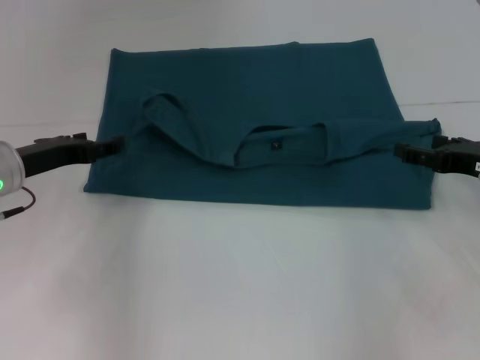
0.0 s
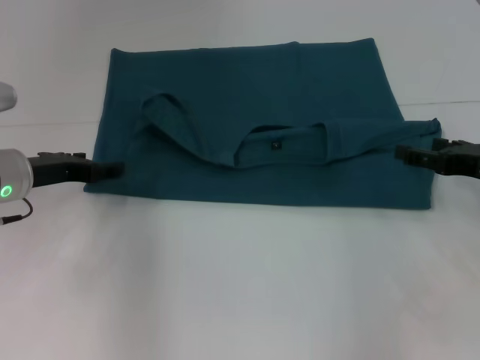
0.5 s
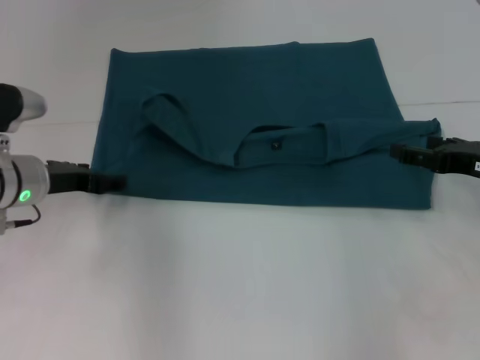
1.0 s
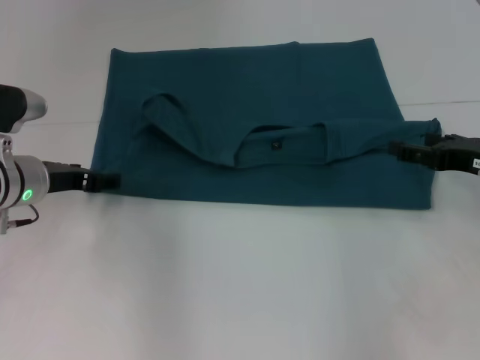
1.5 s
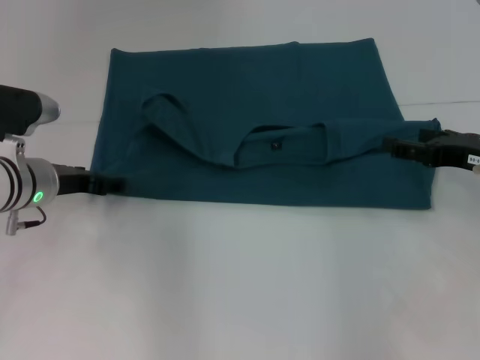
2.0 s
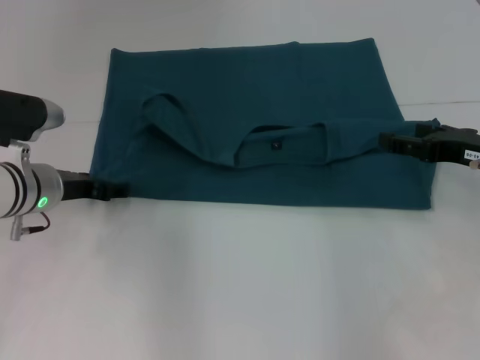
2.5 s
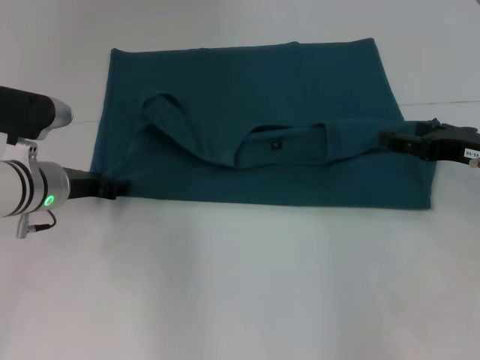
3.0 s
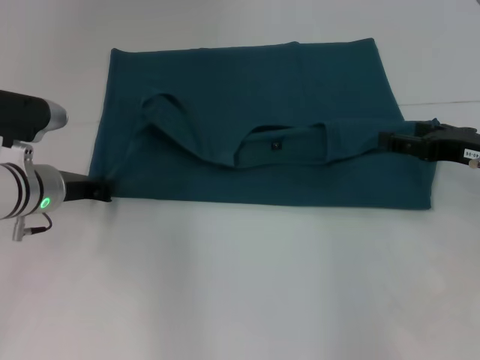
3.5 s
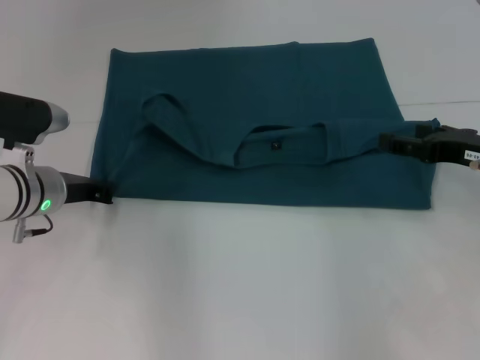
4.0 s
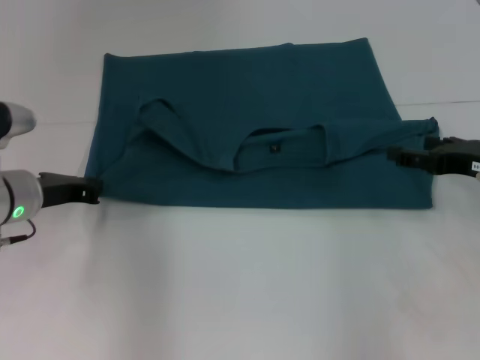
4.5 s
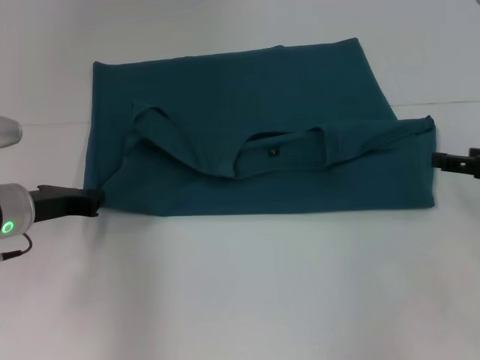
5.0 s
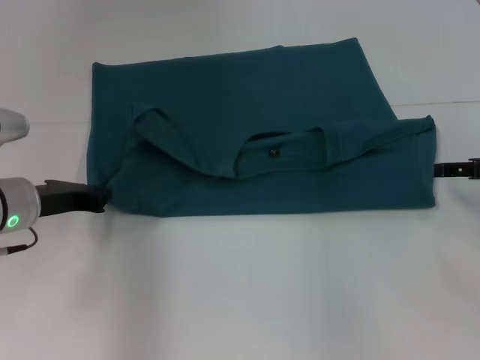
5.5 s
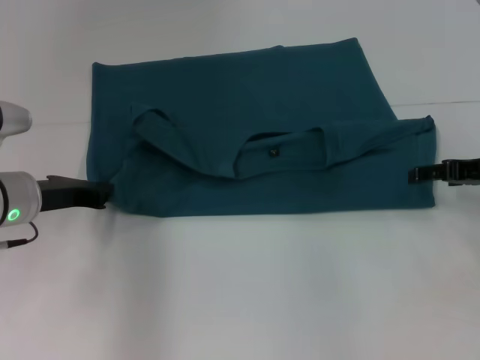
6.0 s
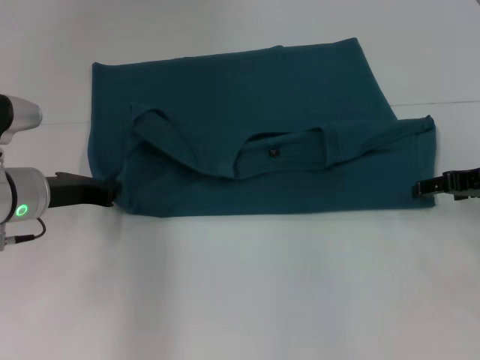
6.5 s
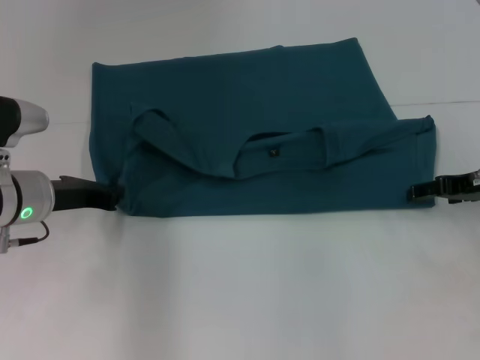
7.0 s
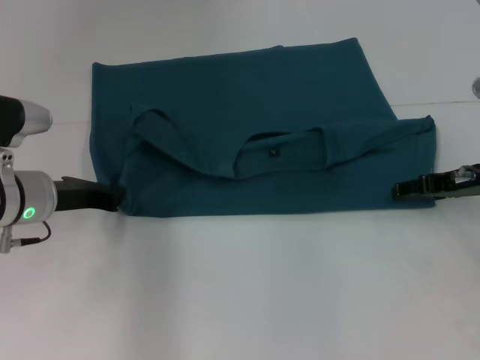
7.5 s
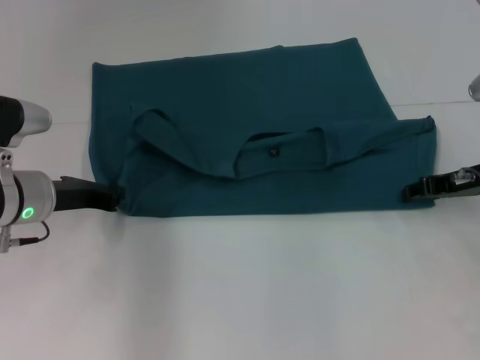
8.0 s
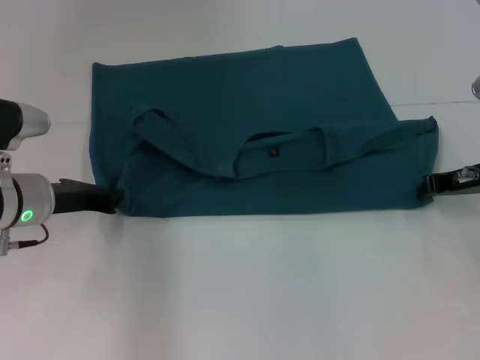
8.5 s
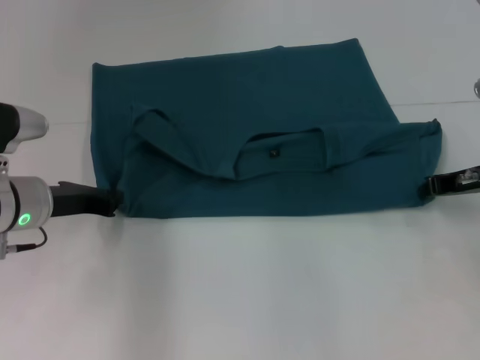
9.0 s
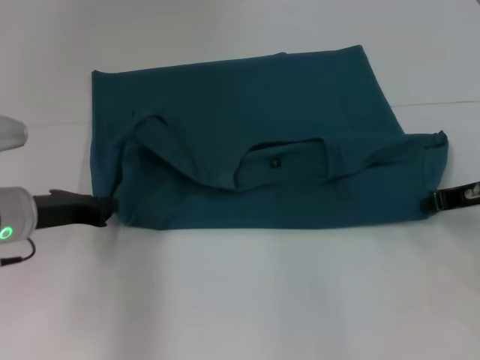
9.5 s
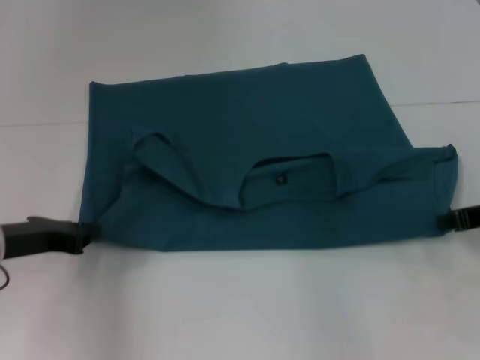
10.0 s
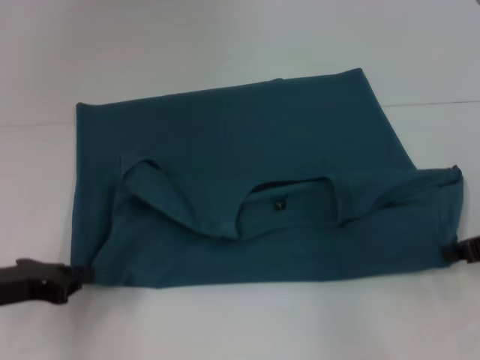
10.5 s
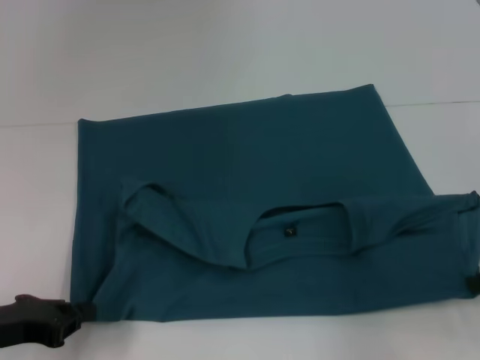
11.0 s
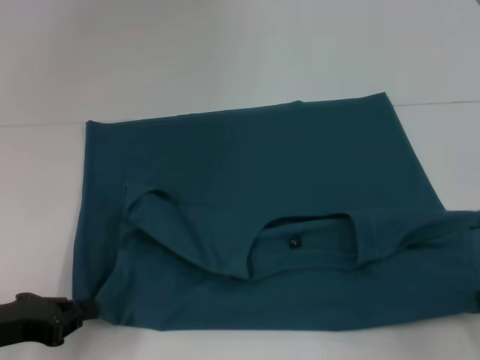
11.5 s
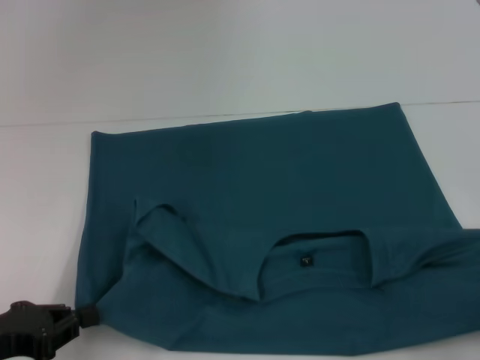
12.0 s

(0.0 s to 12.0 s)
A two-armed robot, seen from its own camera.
Step, 0.0 s - 12.0 s: Pull the clothes with your left hand.
Step, 0.0 s - 12.0 s: Pull the clothes with your right hand.
2.0 s - 4.0 s: The left gripper closes.
6.0 s - 8.0 s: The grippers move only a little.
8.0 s - 10.0 s: Both grippers travel together backward, about 5 cm. The right gripper closes.
10.0 s - 12.0 s: The left gripper shifts roughly 10 cm backward, while the right gripper moves backward and to the right, approximately 15 cm.

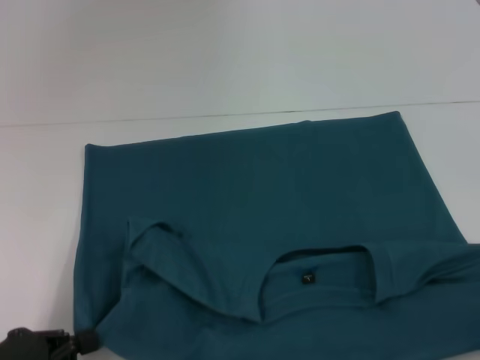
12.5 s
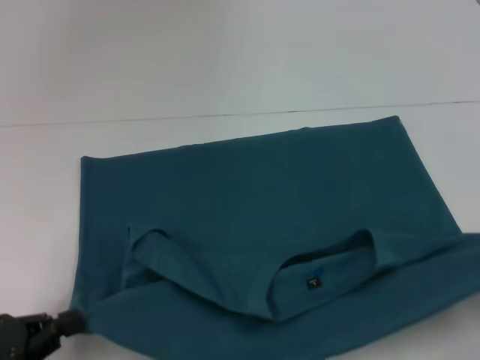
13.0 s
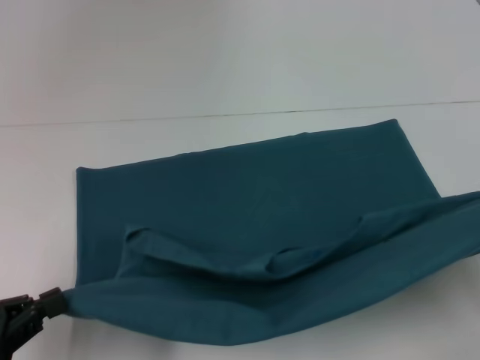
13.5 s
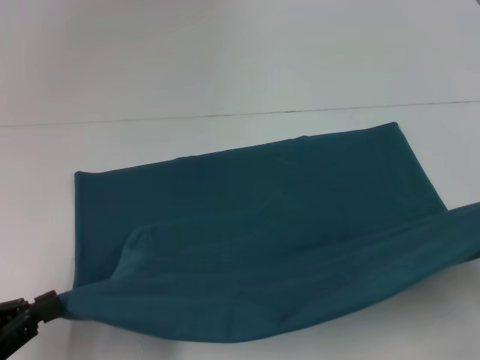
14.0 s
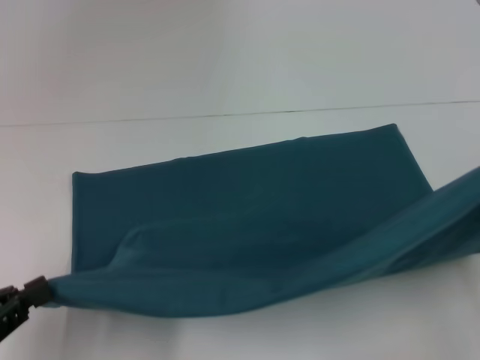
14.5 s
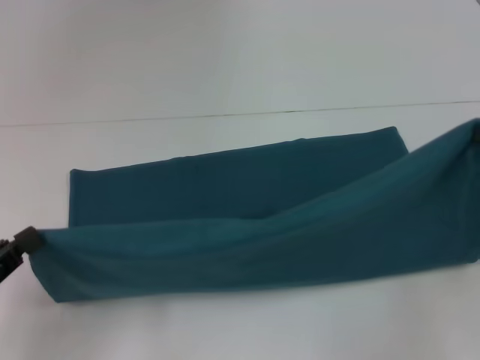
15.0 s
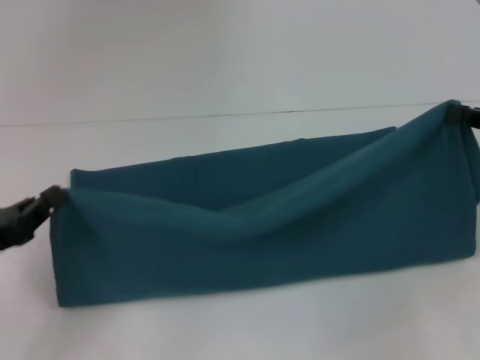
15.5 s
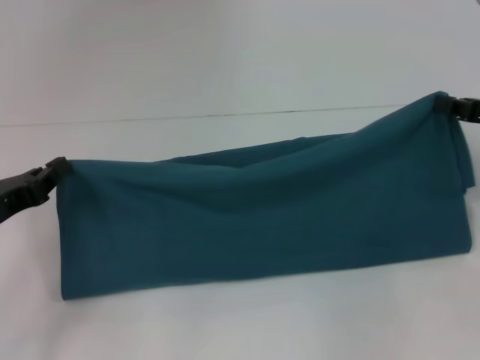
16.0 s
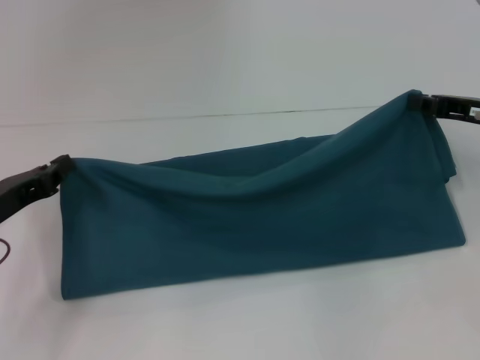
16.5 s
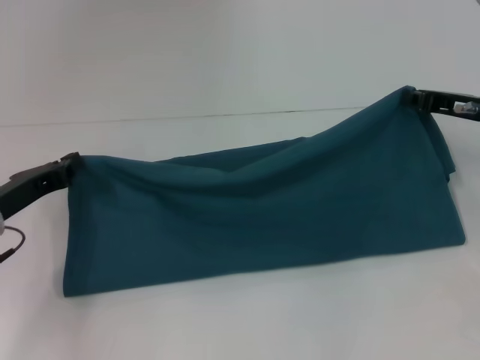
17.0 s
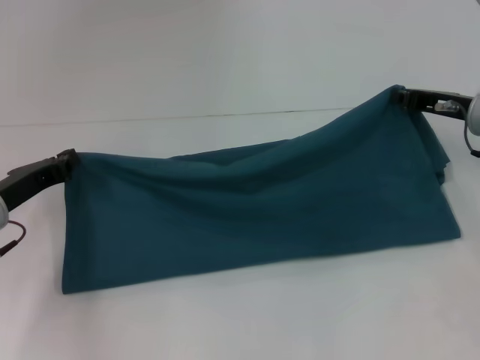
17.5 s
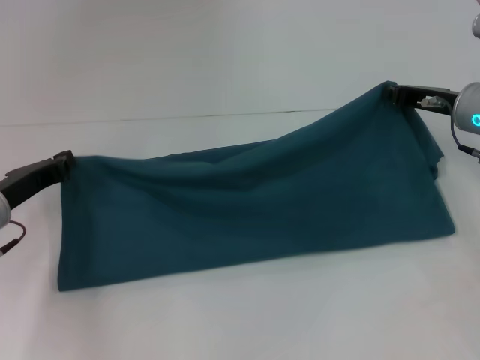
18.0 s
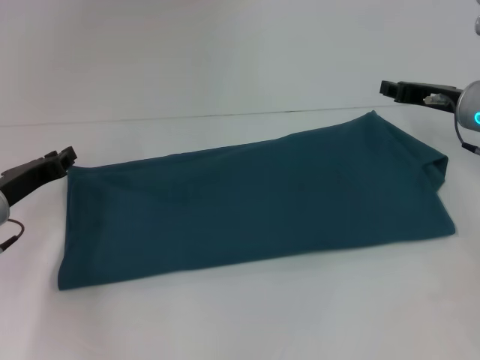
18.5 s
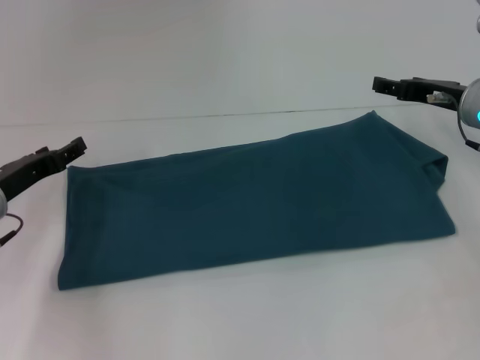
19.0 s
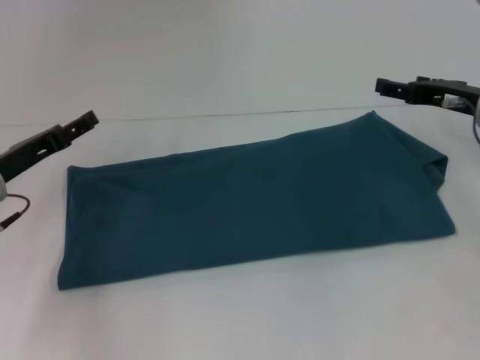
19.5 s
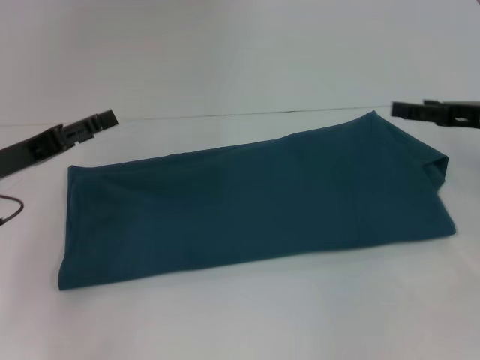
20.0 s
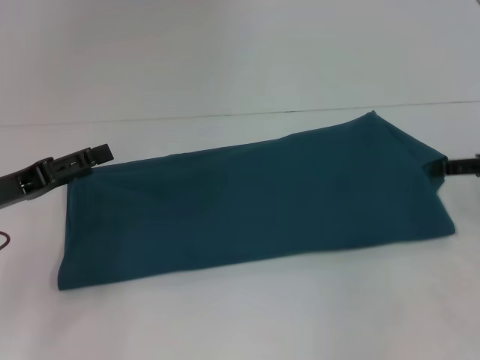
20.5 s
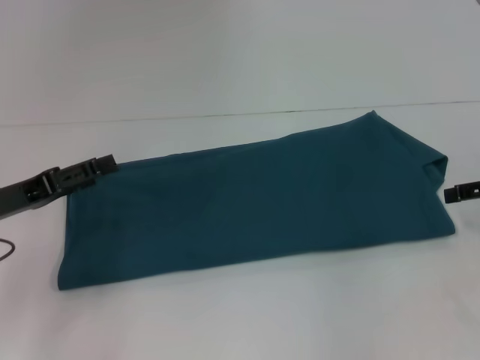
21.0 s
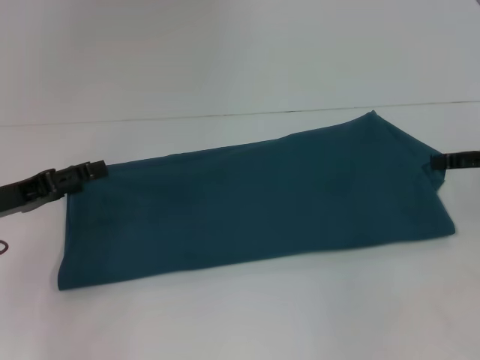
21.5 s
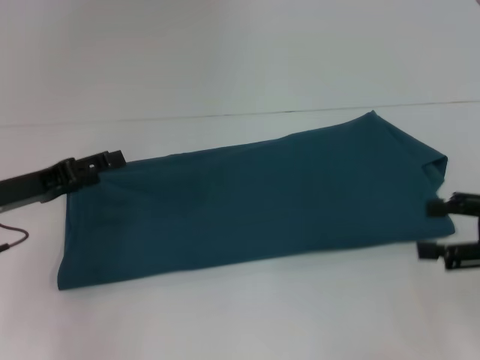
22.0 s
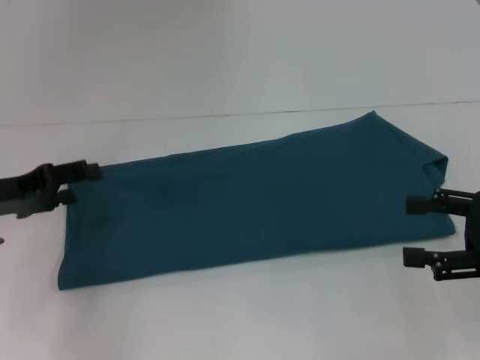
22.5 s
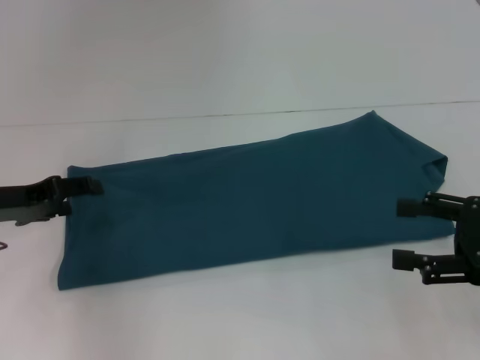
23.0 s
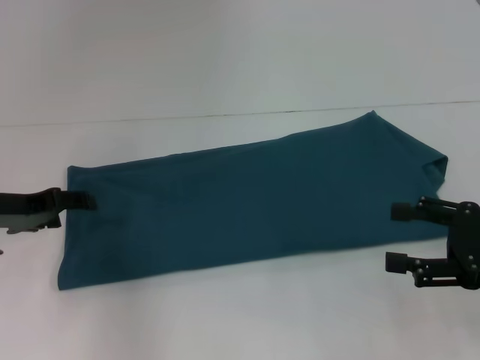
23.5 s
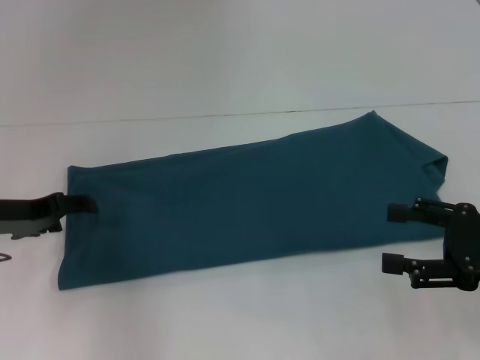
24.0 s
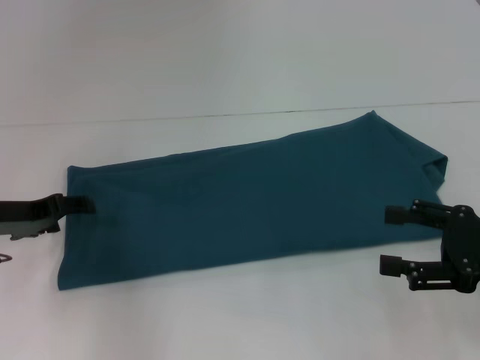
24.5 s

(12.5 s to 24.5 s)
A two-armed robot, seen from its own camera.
Step, 12.5 s - 18.0 s: Fold the clothes to the right.
12.5 s - 14.5 s: The right gripper travels forward and upward by about 10 cm.
14.5 s - 16.5 s: The left gripper shifts about 15 cm forward, while the right gripper shifts some 15 cm forward and to the left.
16.5 s - 18.5 s: The left gripper changes place by some 5 cm; the right gripper shifts by some 5 cm.
18.5 s - 20.5 s: The right gripper is displaced backward and to the right by approximately 10 cm, and opens up. Meanwhile the left gripper ends up about 5 cm from where it was, and opens its fingers.
20.5 s - 22.5 s: The right gripper shifts approximately 10 cm backward.
22.5 s - 24.5 s: The grippers move only a little.

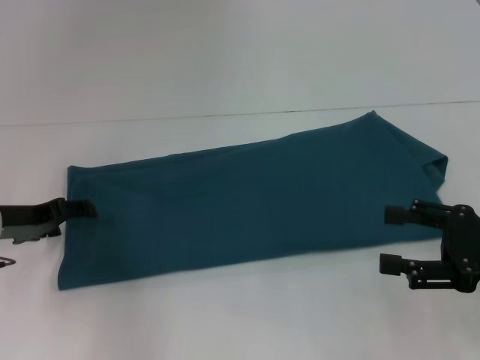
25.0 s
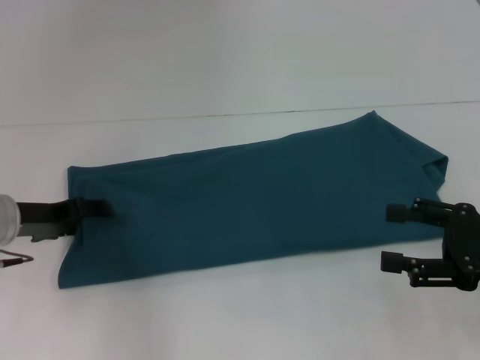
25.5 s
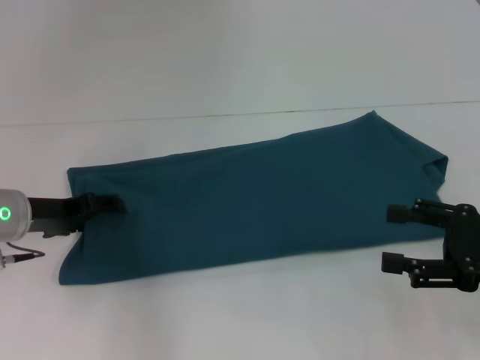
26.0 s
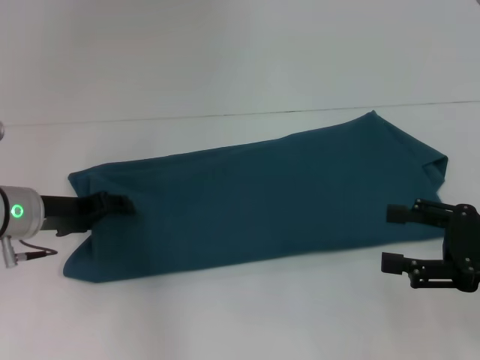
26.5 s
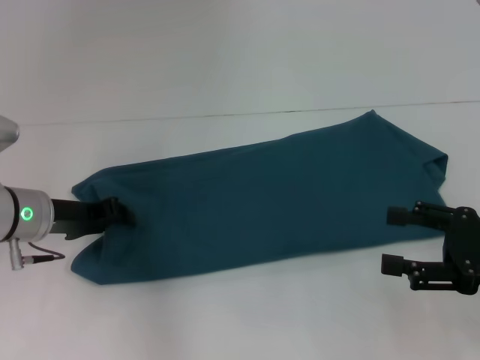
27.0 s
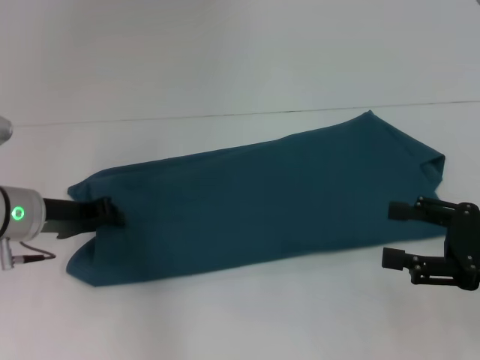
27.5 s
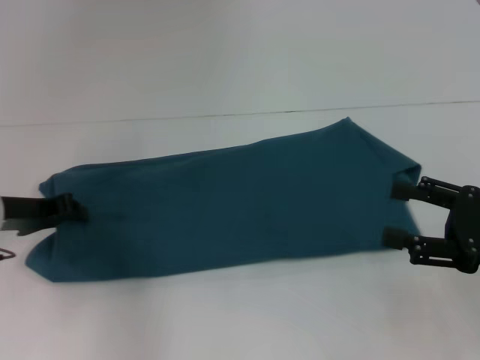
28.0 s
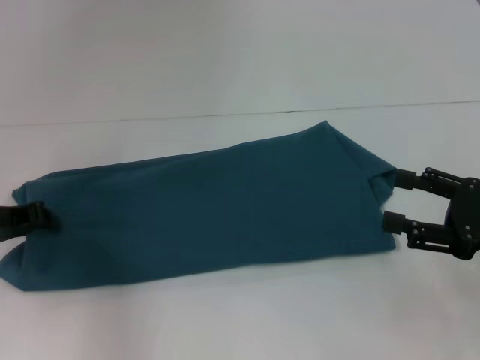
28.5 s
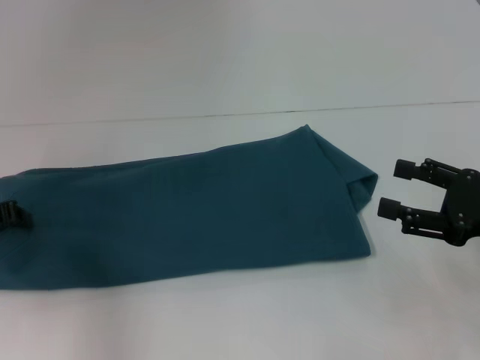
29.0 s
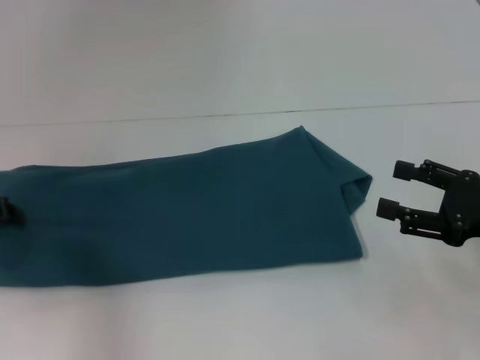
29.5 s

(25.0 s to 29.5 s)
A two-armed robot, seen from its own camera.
25.0 s - 27.0 s: The left gripper changes place by roughly 5 cm, and closes.
27.0 s - 29.5 s: The left gripper is displaced to the left by roughly 10 cm.
